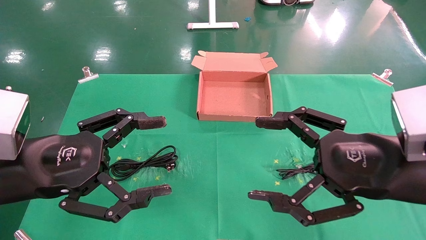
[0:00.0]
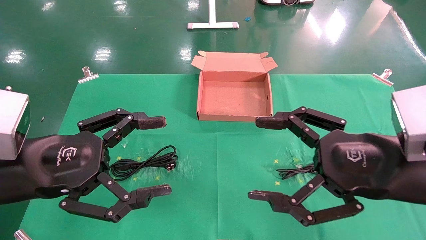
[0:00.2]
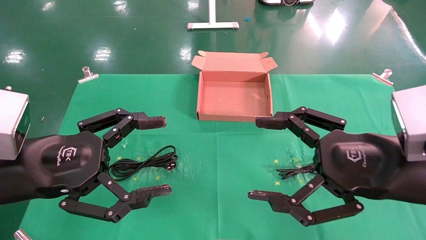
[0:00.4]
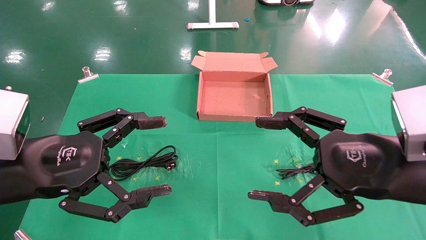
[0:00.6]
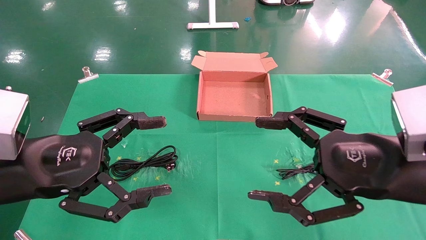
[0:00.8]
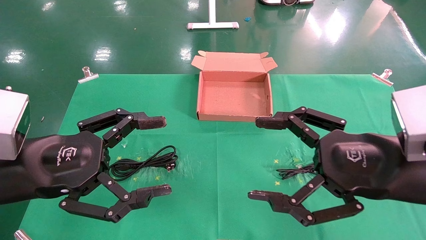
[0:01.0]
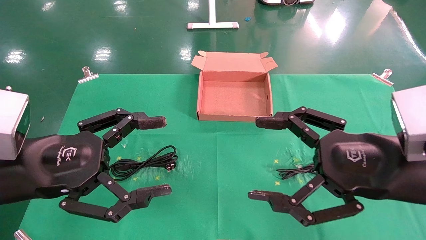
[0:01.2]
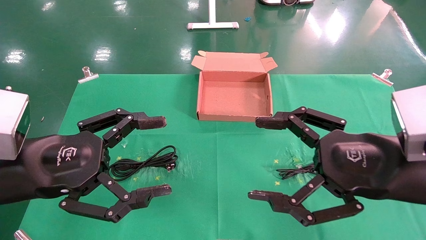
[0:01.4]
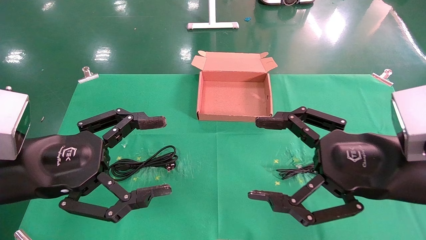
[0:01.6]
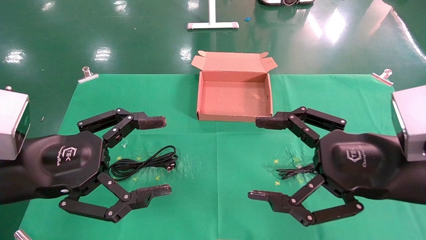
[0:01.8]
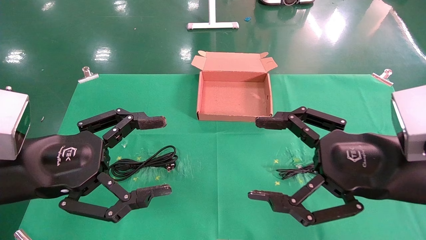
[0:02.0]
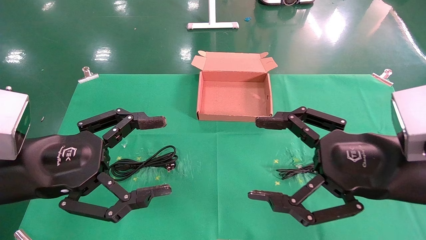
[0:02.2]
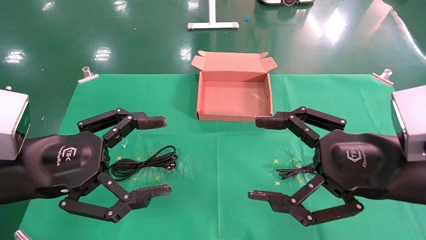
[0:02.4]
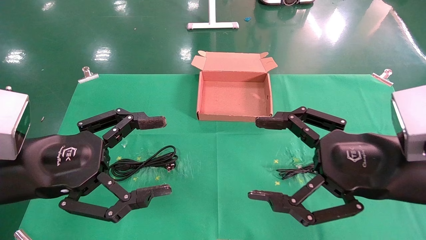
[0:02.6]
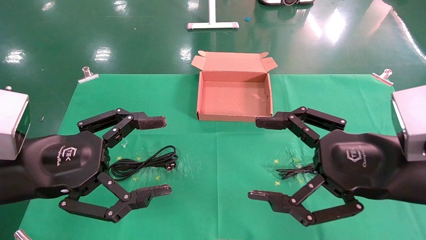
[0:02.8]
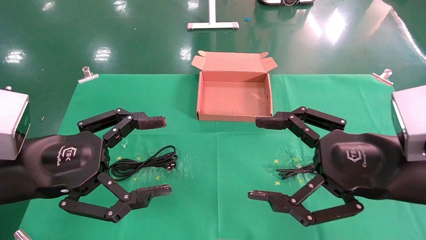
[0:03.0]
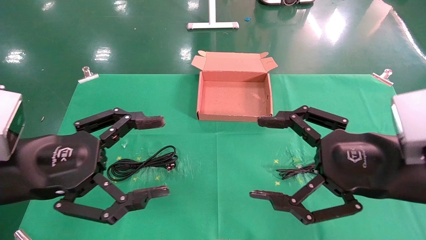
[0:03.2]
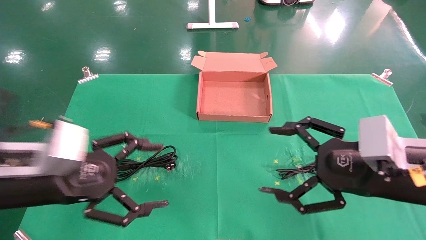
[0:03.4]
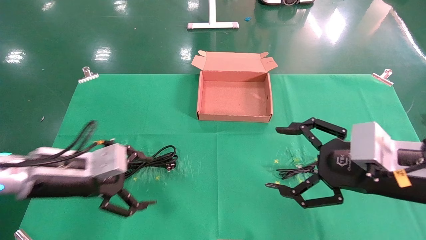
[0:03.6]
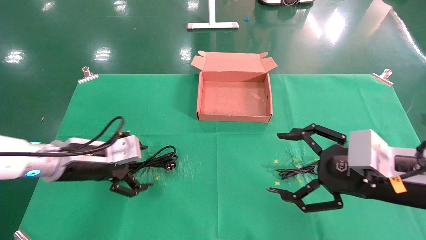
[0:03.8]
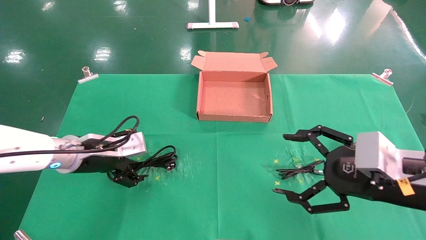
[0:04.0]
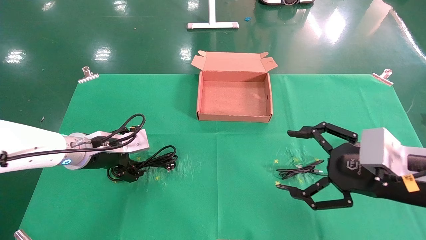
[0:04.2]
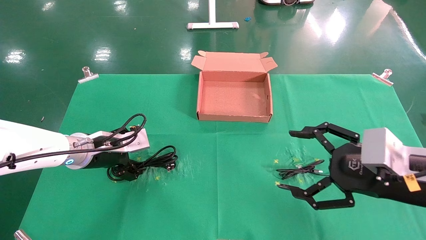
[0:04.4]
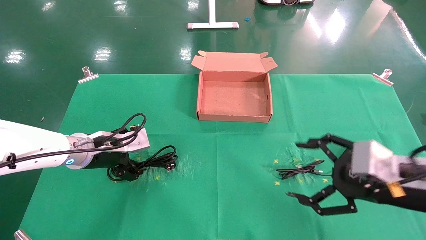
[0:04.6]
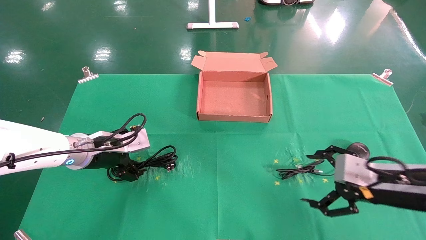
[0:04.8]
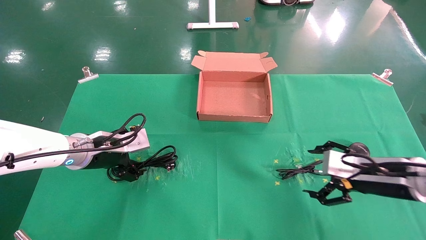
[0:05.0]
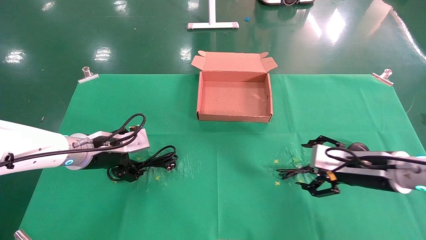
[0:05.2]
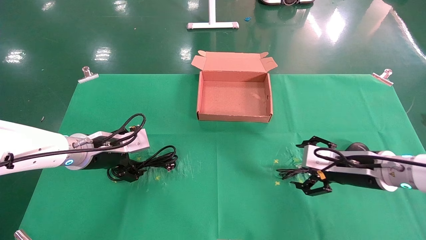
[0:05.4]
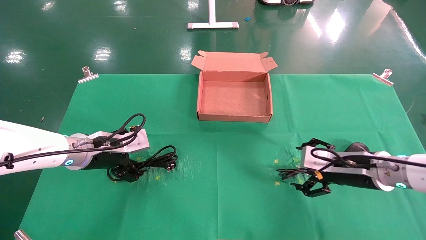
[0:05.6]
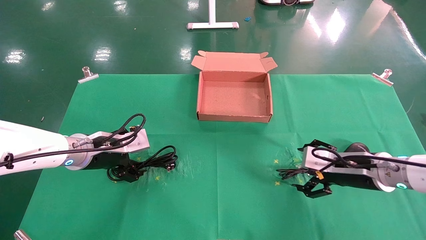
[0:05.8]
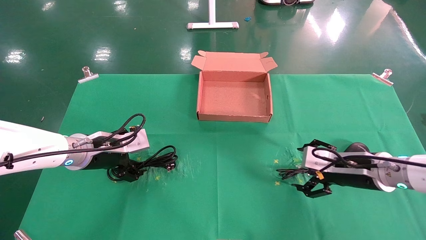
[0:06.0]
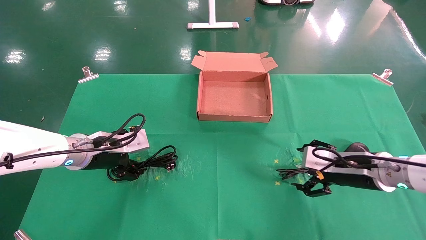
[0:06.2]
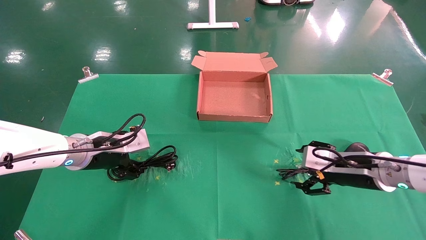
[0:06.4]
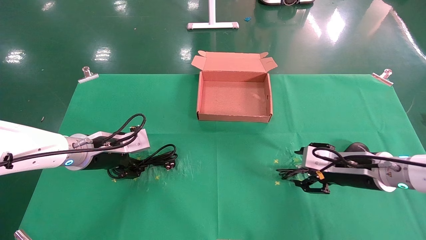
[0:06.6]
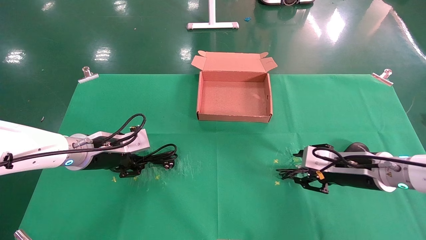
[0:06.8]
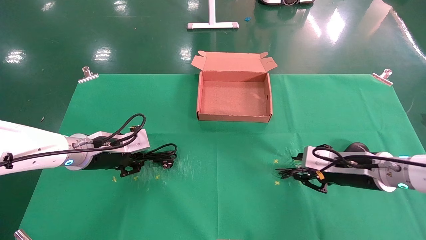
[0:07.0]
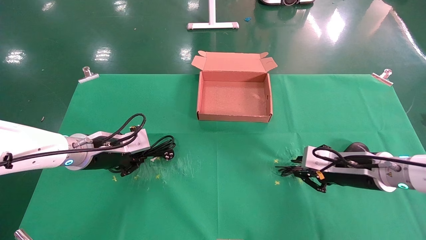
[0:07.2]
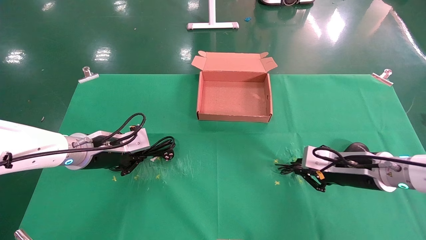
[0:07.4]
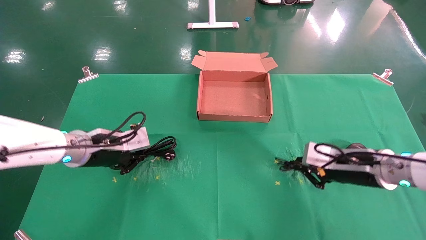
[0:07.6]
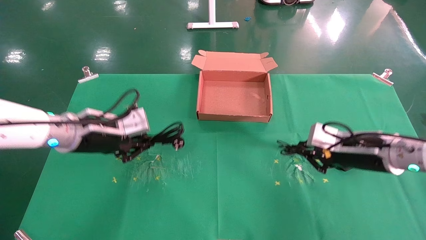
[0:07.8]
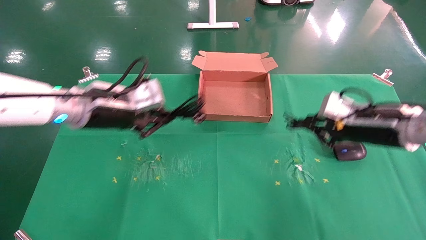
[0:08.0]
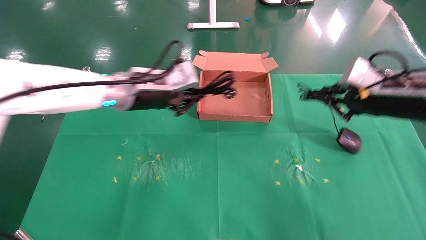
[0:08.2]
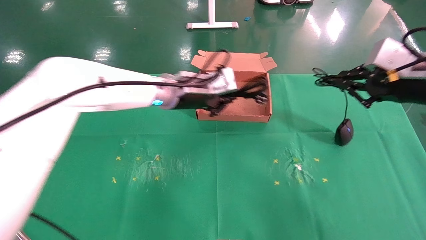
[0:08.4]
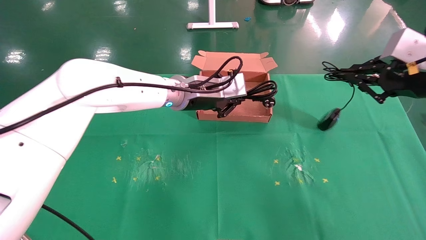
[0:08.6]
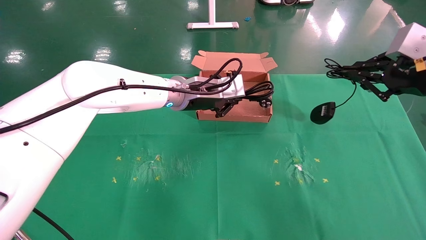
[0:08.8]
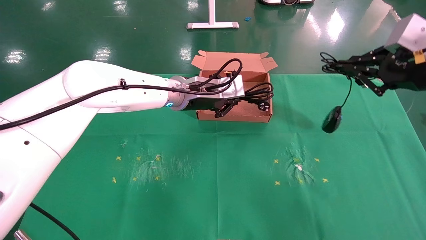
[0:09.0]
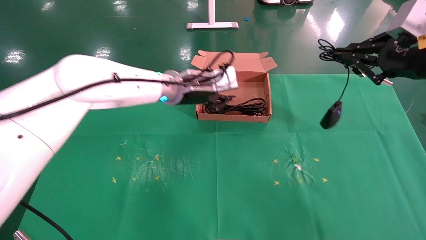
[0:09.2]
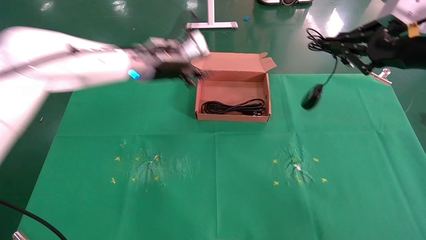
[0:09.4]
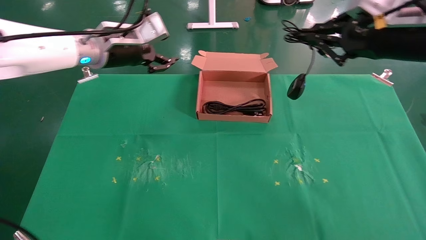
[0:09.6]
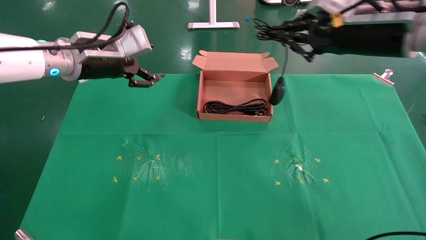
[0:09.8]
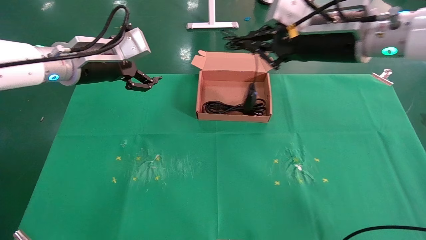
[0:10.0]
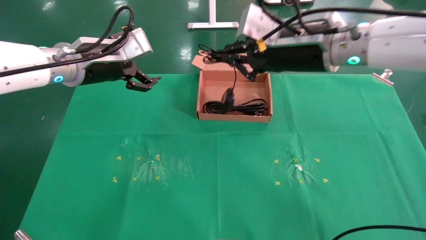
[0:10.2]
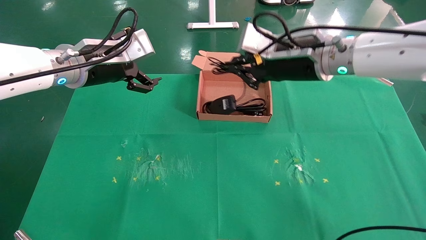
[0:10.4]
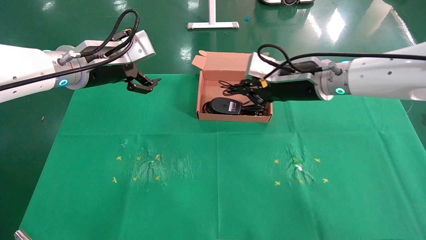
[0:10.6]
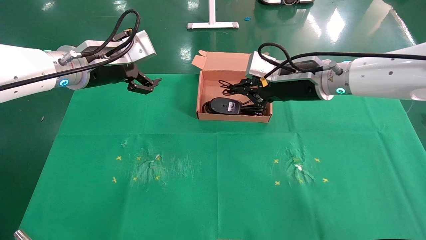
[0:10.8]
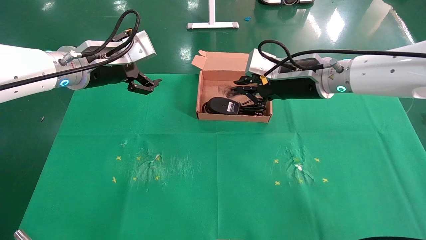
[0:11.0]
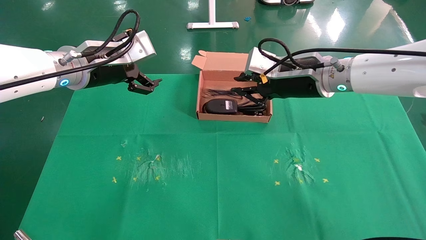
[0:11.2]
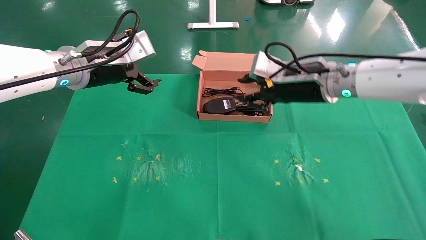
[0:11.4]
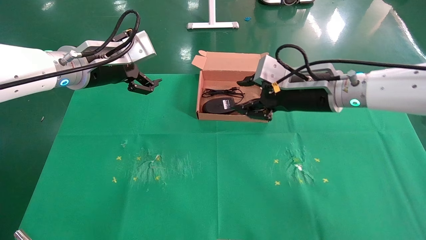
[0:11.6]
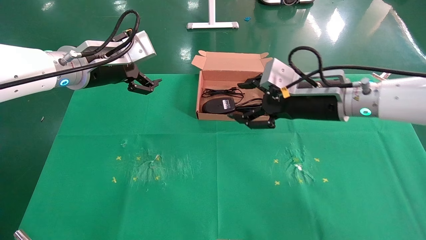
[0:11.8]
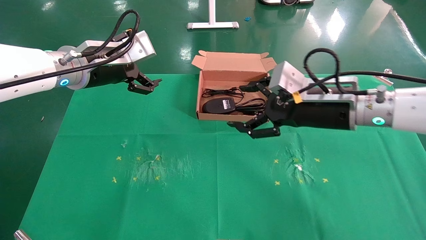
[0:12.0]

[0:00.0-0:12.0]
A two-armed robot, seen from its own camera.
Task of the whole recording: grasp data cable left put into box grasp mouse right put into box.
Step, 0:03.4 to 0:07.4: Simultaneously pick up the mouse and power cord from the accessory packaging area.
Step, 0:07.6 to 0:11.4: Place the mouse and power cord into the box.
0:00.0 to 0:03.0: Both grippers stay put.
0:03.0 to 0:04.4: The right gripper shifts by about 5 cm. The left gripper shifts roughly 20 cm forward and downward.
0:04.4 to 0:06.0: The right gripper heads forward and downward, covering roughly 15 cm.
0:06.0 to 0:07.6: The right gripper closes its fingers, while the left gripper closes its fingers.
0:07.6 to 0:09.0: The right gripper is displaced upward by roughly 20 cm. Meanwhile the left gripper goes some 20 cm to the right and forward.
0:09.0 to 0:10.4: The left gripper heads to the left, backward and upward, covering some 20 cm, and opens its fingers; the right gripper shifts roughly 20 cm to the left and forward.
0:10.4 to 0:12.0: The right gripper goes some 5 cm downward, and opens up.

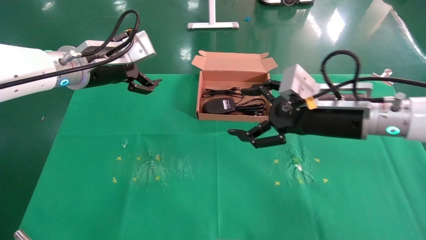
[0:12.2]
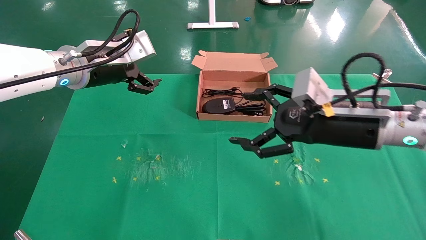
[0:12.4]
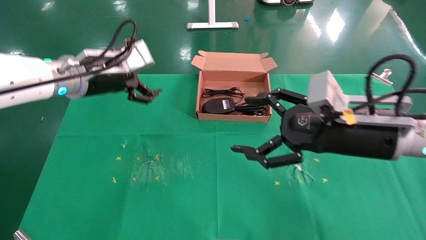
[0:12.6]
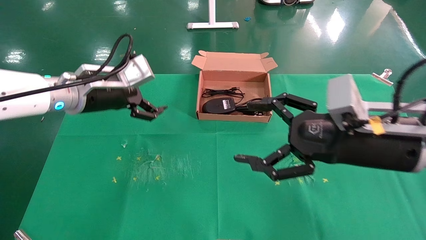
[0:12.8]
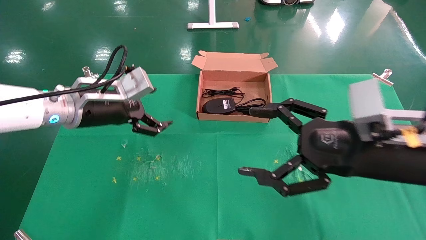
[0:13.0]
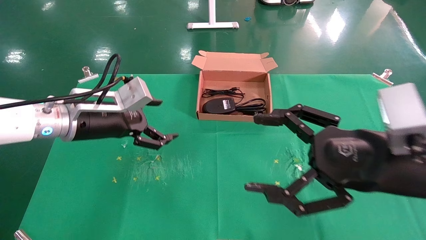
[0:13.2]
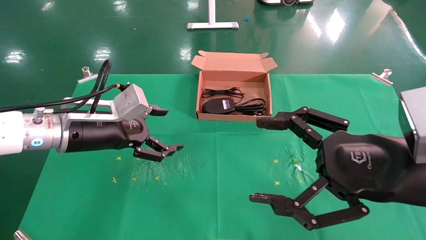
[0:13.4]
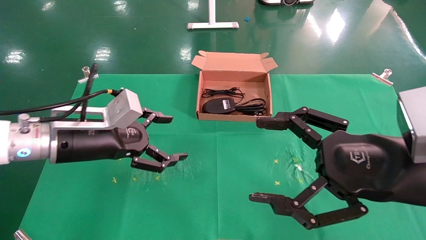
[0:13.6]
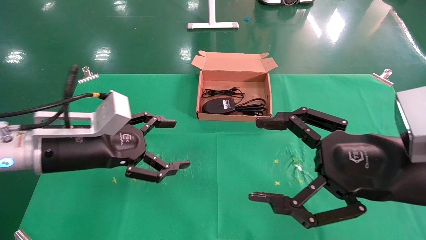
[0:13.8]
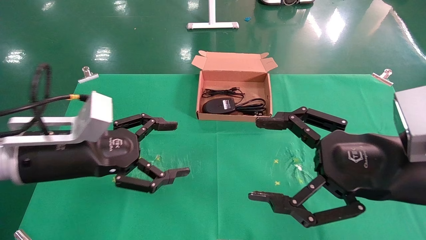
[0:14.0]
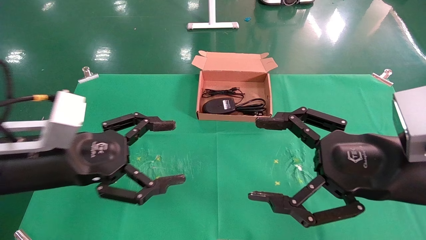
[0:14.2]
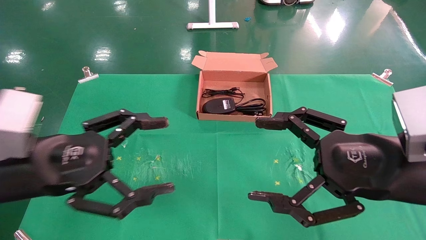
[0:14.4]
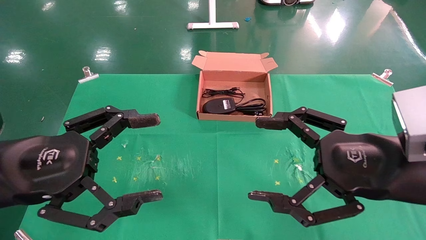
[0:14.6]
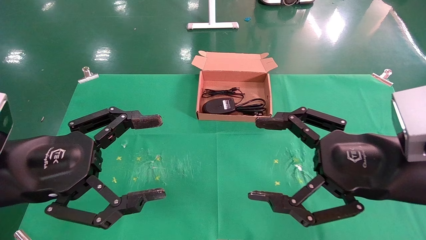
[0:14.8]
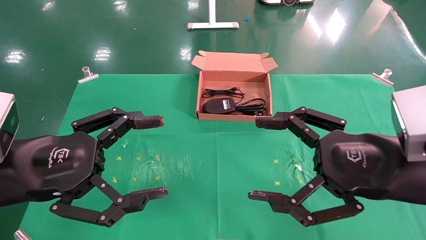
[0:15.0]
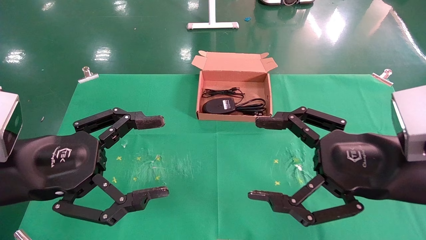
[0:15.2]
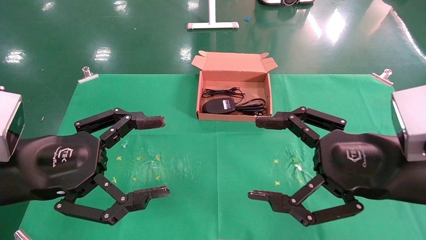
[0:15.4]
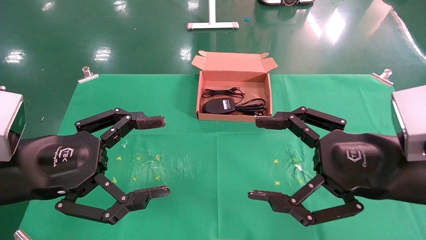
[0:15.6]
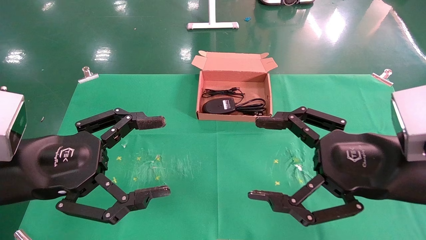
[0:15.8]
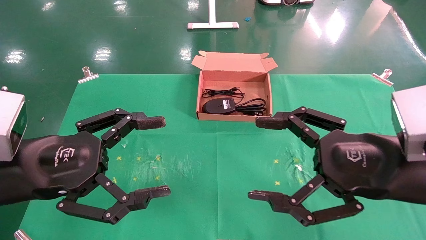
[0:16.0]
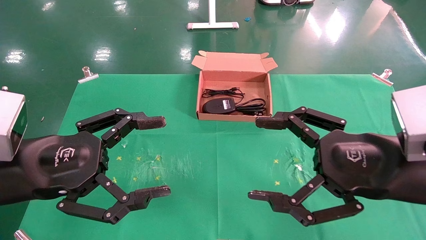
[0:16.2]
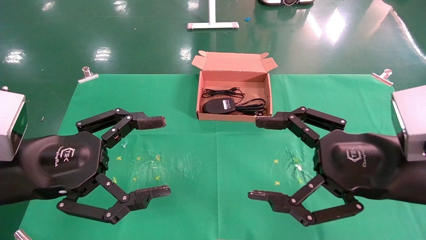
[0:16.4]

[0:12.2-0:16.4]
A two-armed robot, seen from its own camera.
Task of the whole recording: grasp data cable left put into box grasp mouse right put into box.
0:12.2 to 0:13.6: The right gripper is displaced backward by about 10 cm. Meanwhile the left gripper heads downward and backward, covering roughly 15 cm.
0:13.6 to 0:15.0: The left gripper goes some 10 cm backward.
0:15.0 to 0:16.4: Both grippers stay about where they are.
